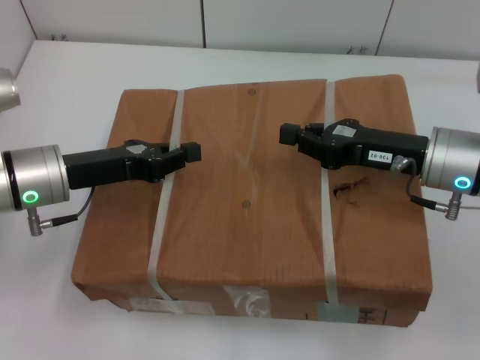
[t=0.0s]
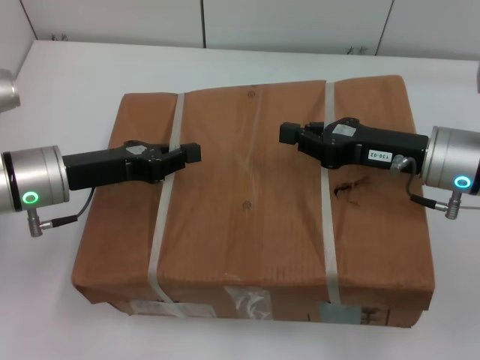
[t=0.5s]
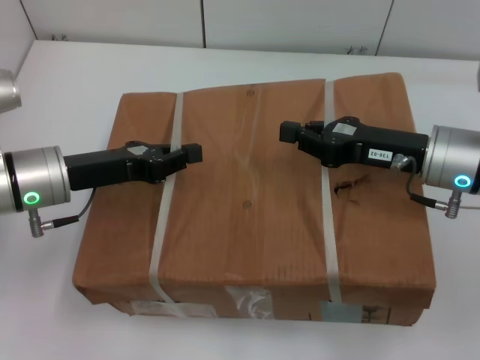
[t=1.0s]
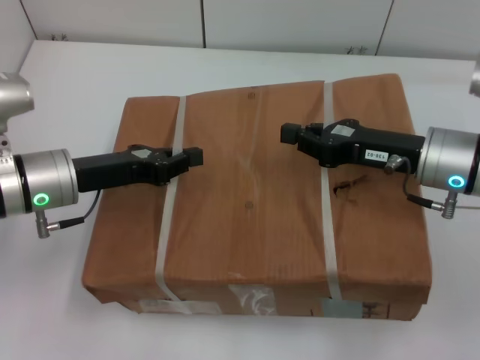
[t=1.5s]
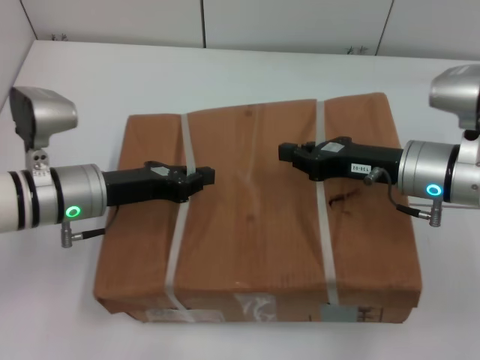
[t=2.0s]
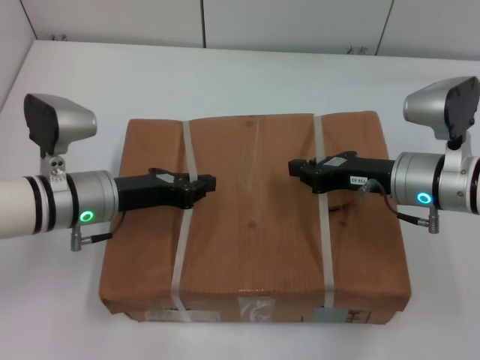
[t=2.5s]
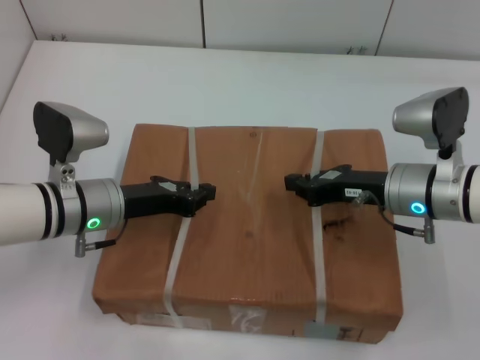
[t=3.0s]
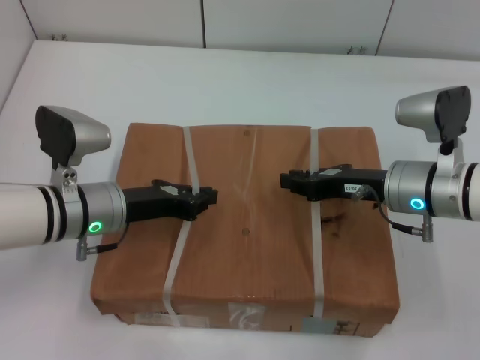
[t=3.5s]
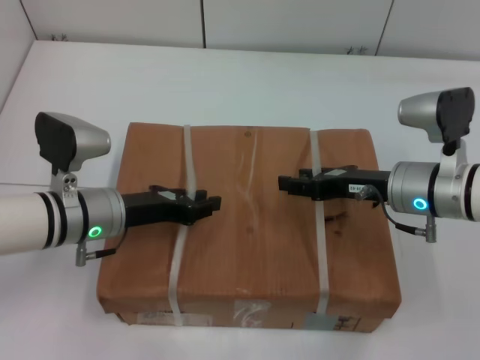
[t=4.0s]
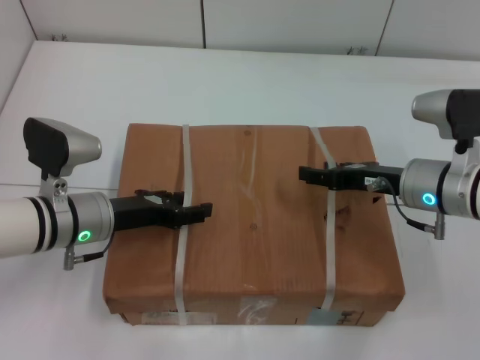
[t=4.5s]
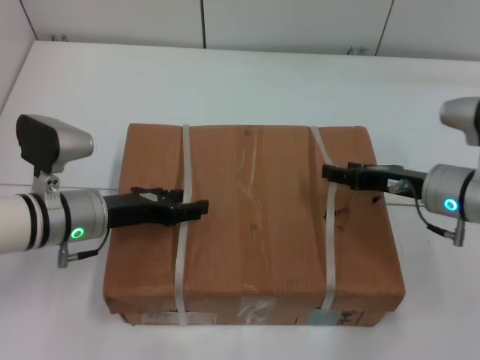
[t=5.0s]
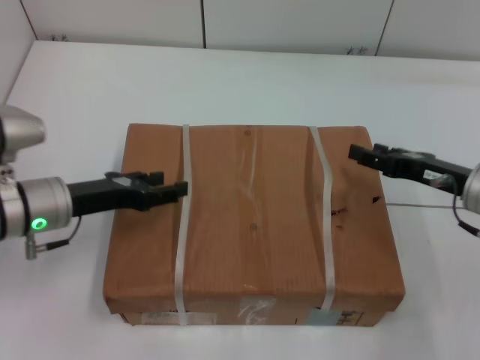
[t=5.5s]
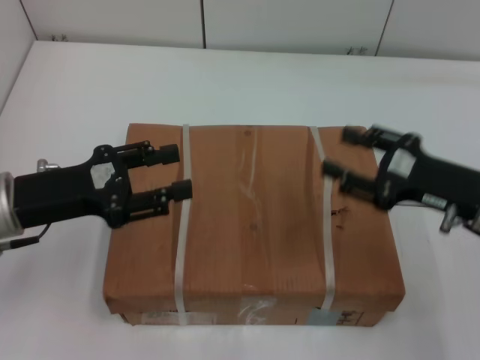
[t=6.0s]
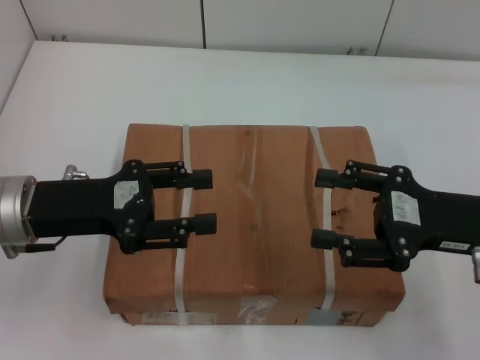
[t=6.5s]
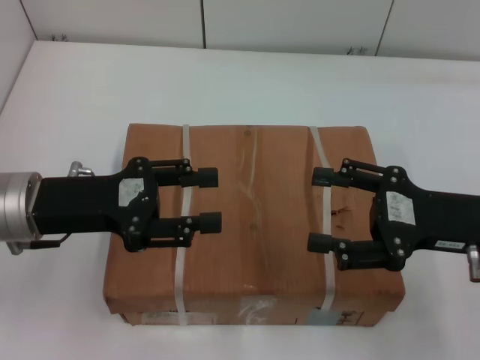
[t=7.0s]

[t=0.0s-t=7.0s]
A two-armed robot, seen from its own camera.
Task of the whole recording: place the box on the table with both arms.
Step, t=0.0s to t=3.0s: Place the box on the table with left gripper.
Step, t=0.0s to t=3.0s: Place the box on the table with right gripper.
Step, t=3.5s to t=4.5s: Loosen the box on the table with left gripper.
Step, t=3.5s to t=4.5s: Loosen the box on the table with right gripper.
t=3.5s to t=5.0s: The right gripper opens, while the left gripper opens.
t=5.0s to t=7.0s: The left gripper is displaced upward by about 10 cm, while the right gripper shifts approximately 10 cm backward and upward.
